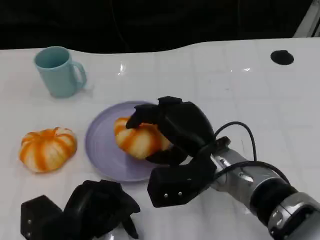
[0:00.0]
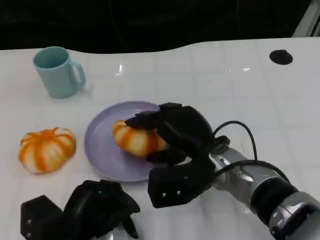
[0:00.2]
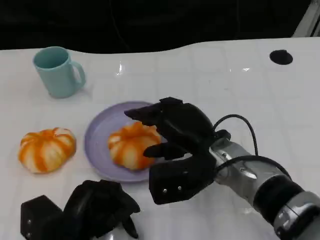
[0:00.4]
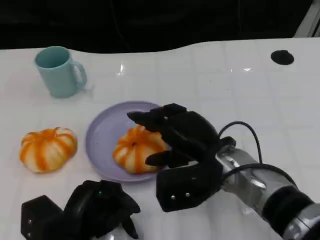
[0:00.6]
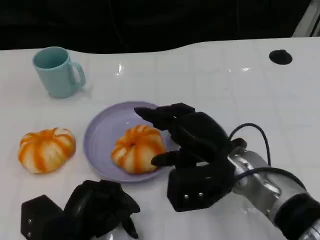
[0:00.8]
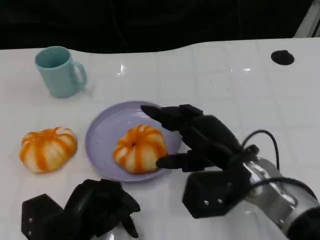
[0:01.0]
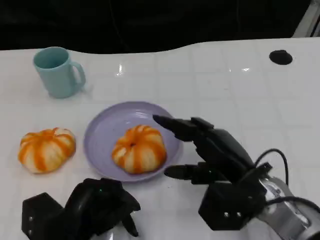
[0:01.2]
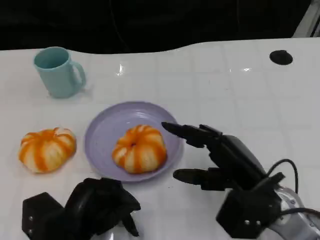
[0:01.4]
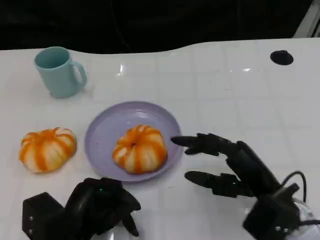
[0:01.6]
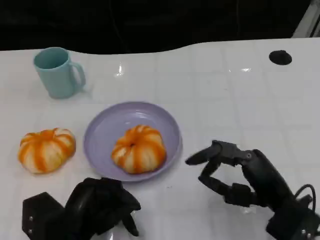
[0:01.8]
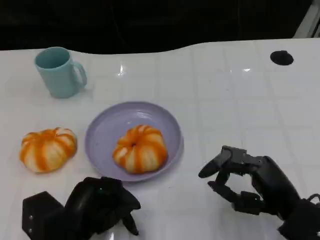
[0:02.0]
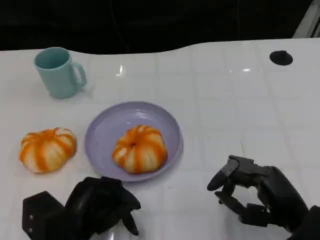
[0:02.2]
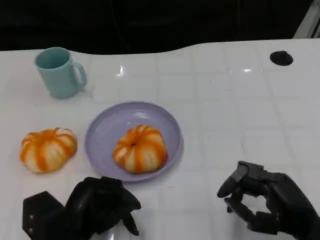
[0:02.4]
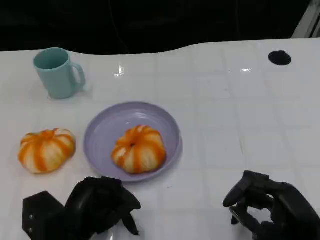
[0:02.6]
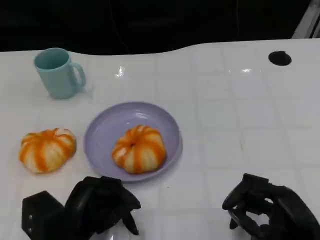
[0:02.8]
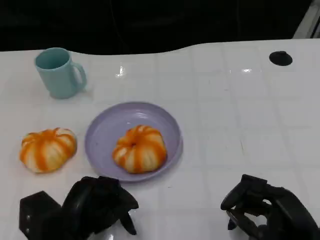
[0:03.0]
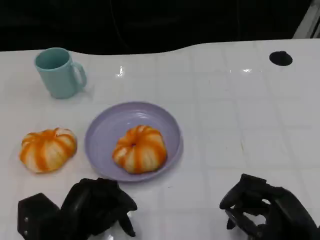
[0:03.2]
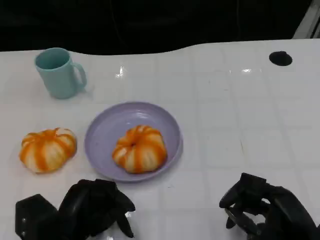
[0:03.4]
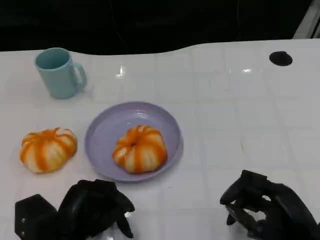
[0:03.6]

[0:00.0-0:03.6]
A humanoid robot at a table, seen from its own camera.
Task of the whole recording: Grasp the bread from the table and place it into the plate.
0:00.0 to 0:01.8: The right hand shifts about 15 cm to the right and backward.
0:01.8 to 0:03.6: The right hand moves backward, approximately 5 cm.

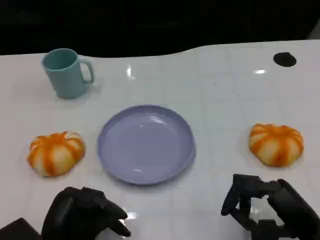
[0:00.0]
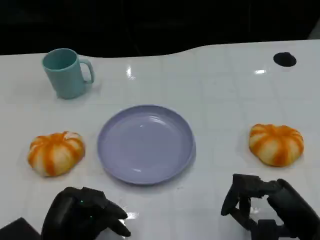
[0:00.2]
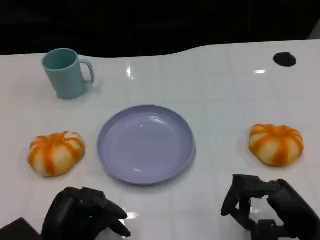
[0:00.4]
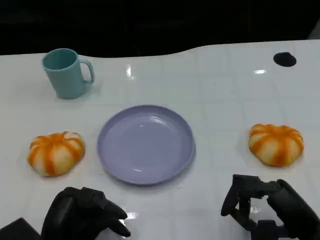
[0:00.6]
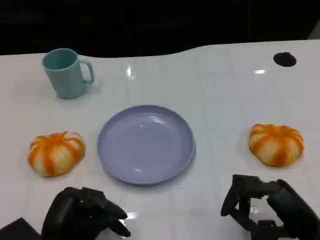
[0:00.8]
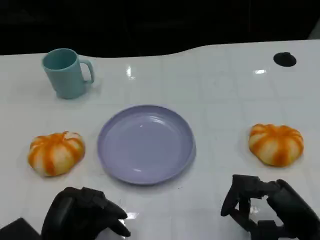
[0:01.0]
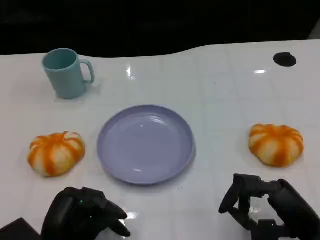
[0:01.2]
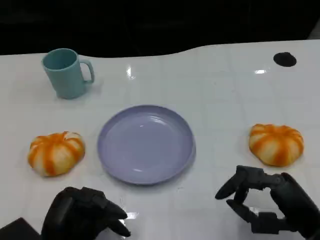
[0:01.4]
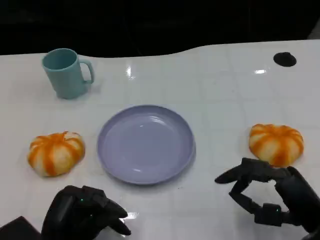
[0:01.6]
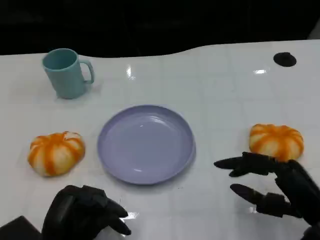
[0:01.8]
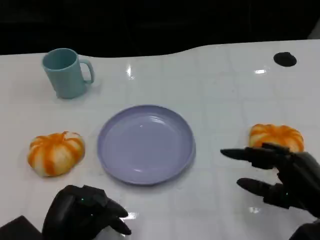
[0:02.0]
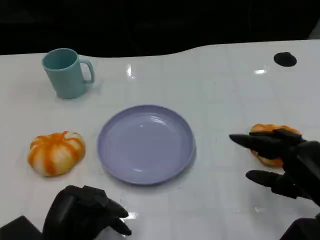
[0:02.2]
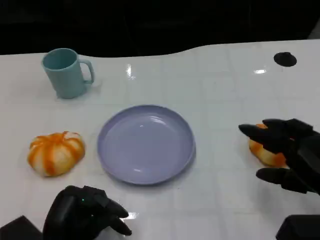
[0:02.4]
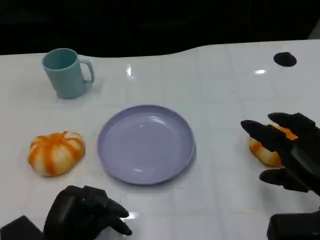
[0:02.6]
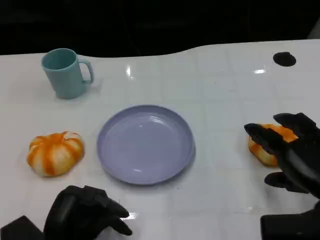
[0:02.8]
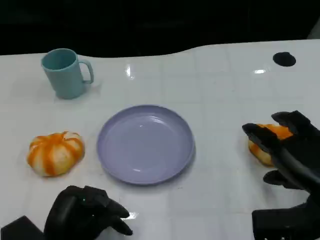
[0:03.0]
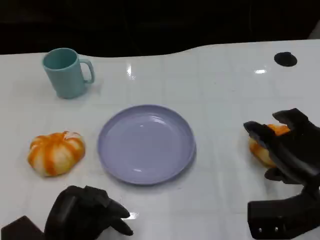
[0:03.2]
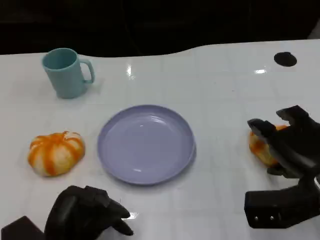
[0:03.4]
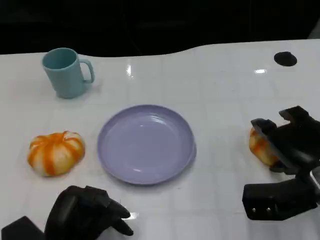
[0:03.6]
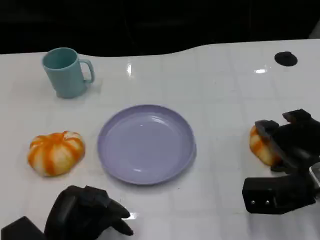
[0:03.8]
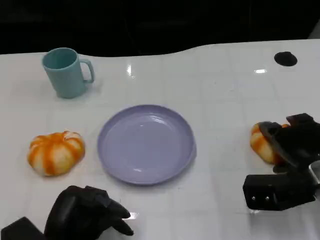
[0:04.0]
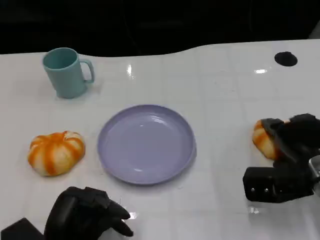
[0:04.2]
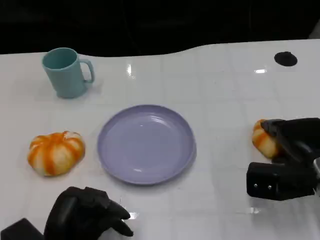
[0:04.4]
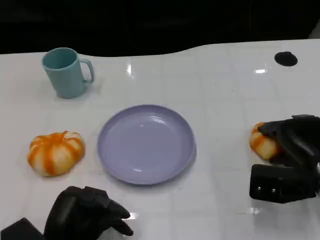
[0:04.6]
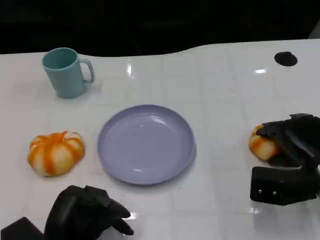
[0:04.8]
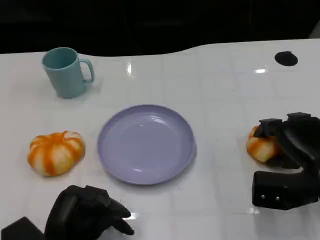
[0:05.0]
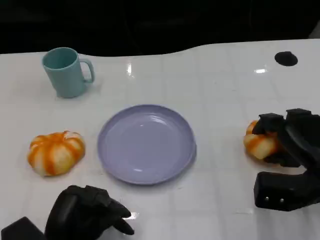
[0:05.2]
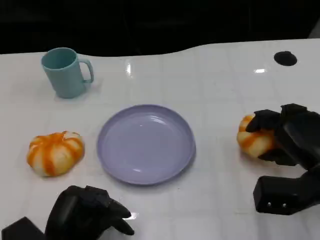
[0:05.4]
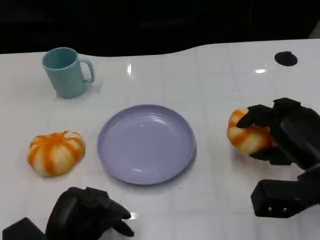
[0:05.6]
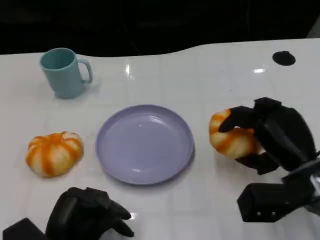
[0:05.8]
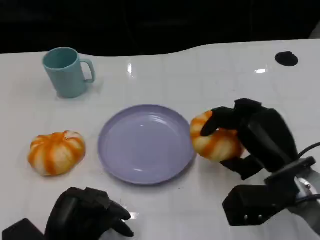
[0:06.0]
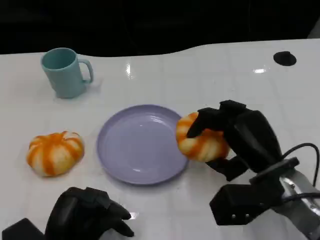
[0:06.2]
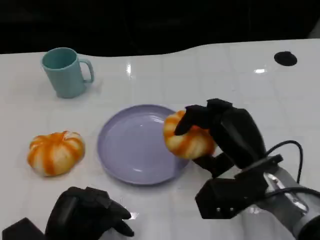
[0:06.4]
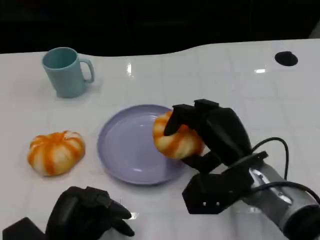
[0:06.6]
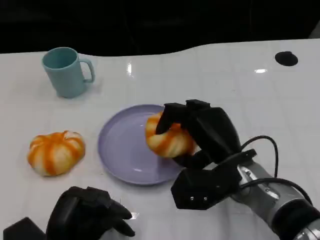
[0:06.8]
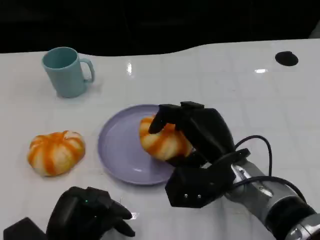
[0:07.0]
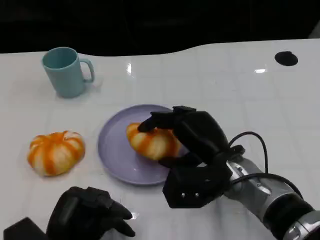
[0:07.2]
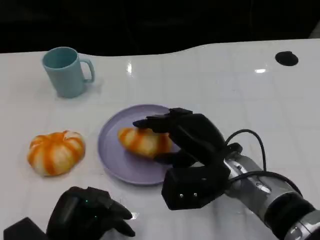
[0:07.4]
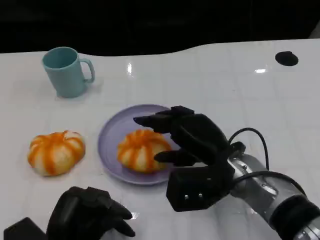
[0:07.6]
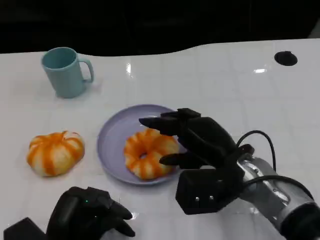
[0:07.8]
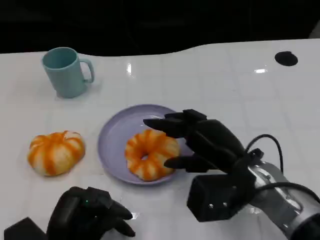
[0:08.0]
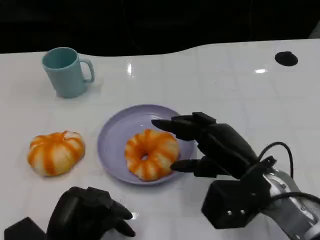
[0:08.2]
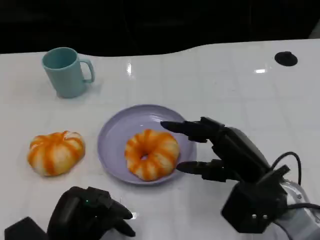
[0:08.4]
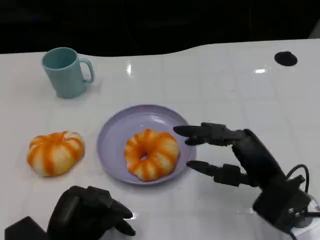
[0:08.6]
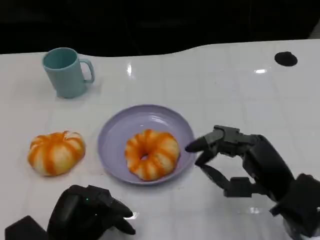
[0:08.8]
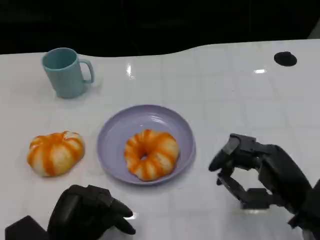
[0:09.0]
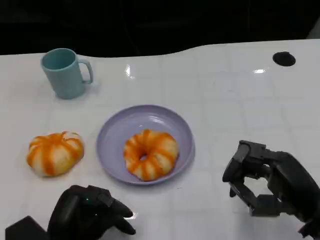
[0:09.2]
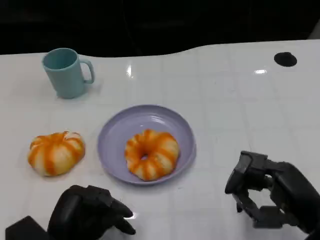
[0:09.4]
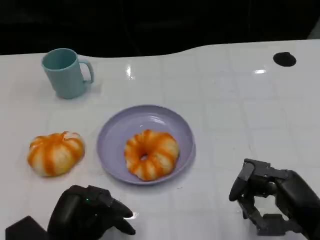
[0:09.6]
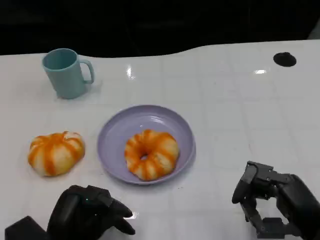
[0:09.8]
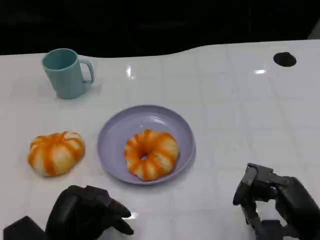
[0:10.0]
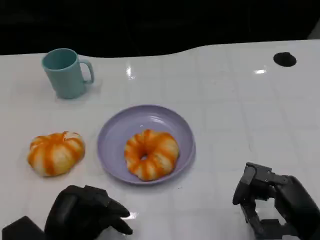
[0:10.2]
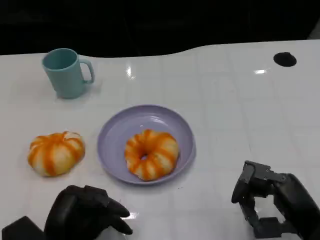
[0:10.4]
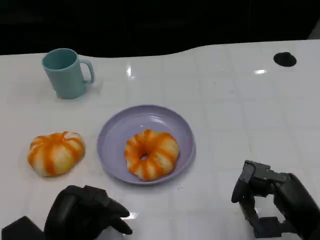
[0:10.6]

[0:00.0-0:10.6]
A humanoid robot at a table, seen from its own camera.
Task of the whole recording: Grasp the bread from the table and place it into the plate.
0:00.0 to 0:01.6: The hands stay close to where they were, moving slightly.
0:01.6 to 0:03.0: The right hand shifts by approximately 5 cm.
0:03.0 to 0:04.6: The right hand goes roughly 5 cm forward.
0:04.6 to 0:06.0: The right hand heads to the left, covering roughly 5 cm.
0:06.0 to 0:07.6: The right hand heads to the left, covering approximately 10 cm.
0:07.6 to 0:09.0: The right hand is displaced to the right and backward by approximately 15 cm.
0:09.0 to 0:10.6: The hands stay close to where they were, moving slightly.

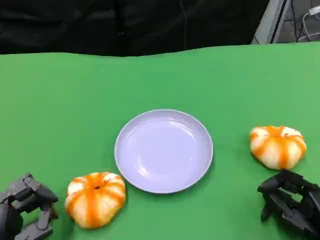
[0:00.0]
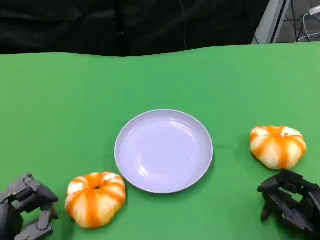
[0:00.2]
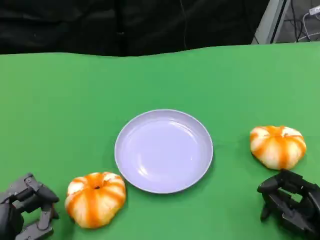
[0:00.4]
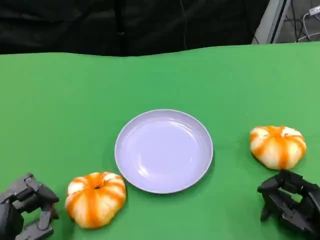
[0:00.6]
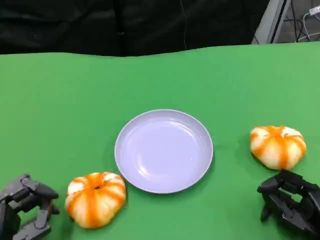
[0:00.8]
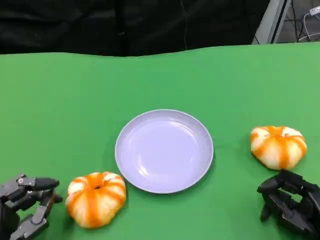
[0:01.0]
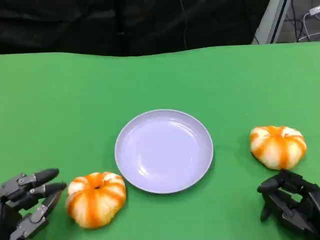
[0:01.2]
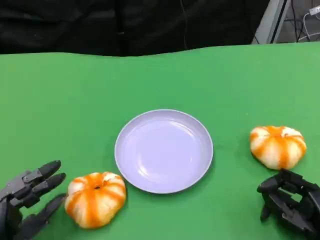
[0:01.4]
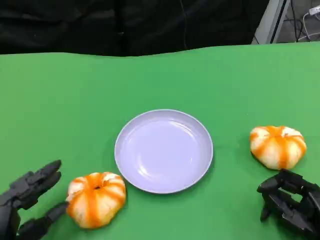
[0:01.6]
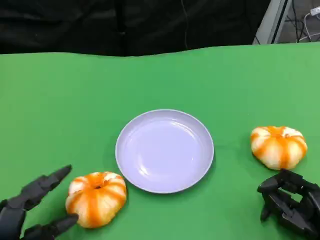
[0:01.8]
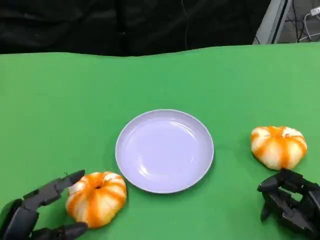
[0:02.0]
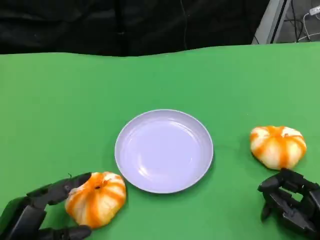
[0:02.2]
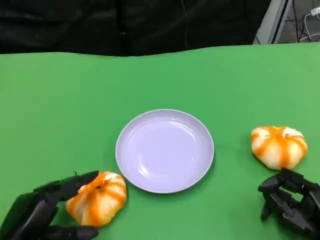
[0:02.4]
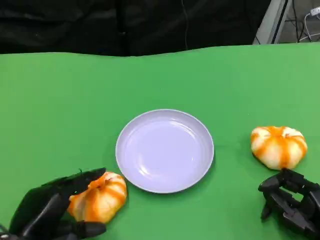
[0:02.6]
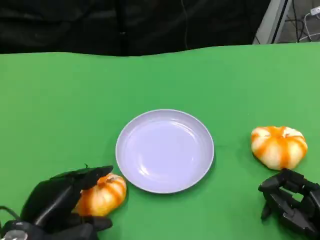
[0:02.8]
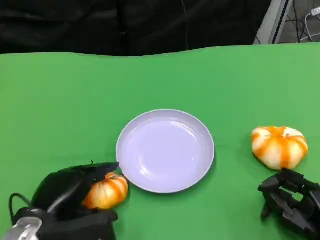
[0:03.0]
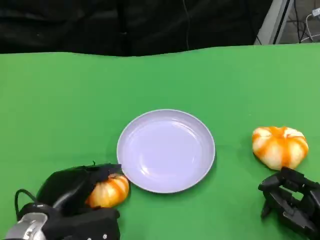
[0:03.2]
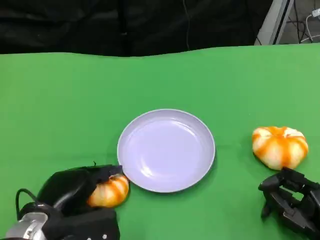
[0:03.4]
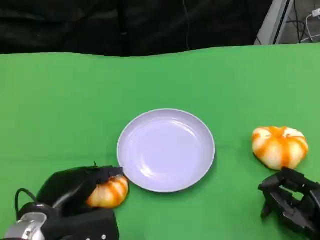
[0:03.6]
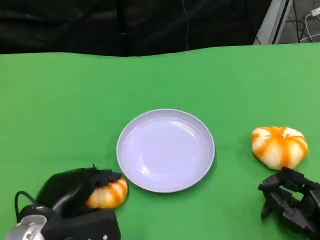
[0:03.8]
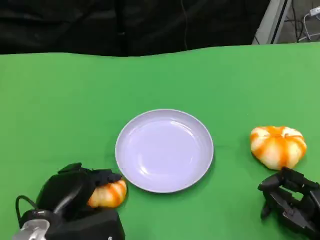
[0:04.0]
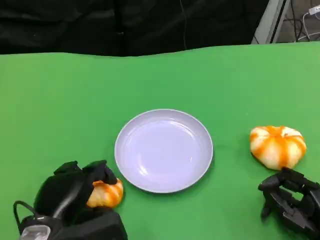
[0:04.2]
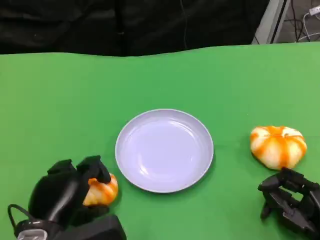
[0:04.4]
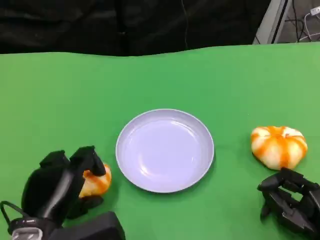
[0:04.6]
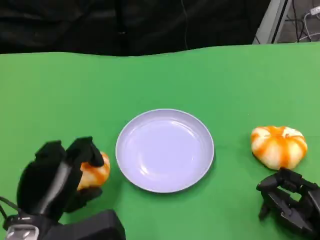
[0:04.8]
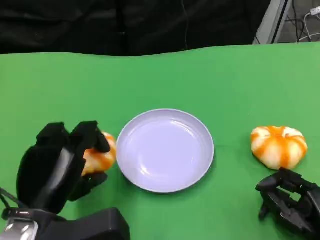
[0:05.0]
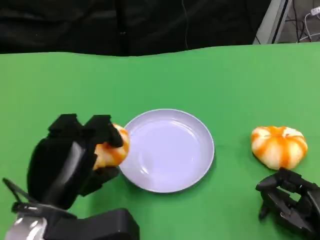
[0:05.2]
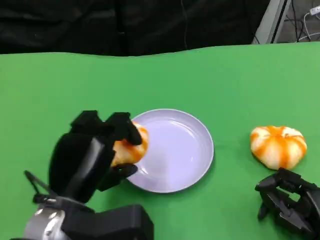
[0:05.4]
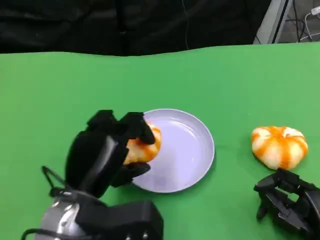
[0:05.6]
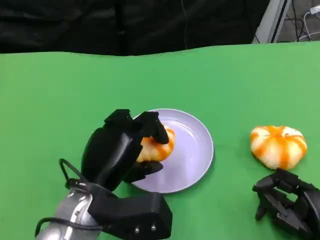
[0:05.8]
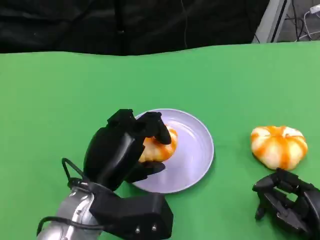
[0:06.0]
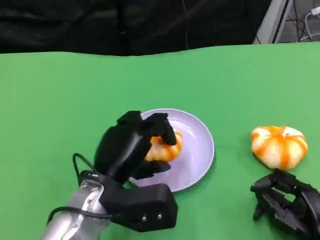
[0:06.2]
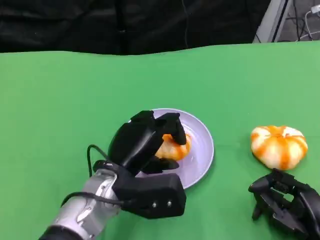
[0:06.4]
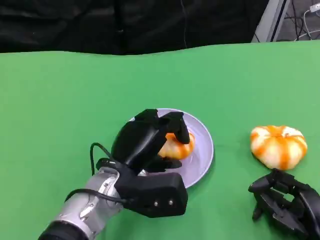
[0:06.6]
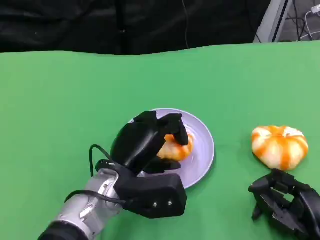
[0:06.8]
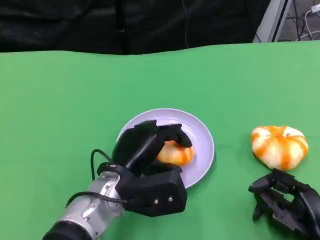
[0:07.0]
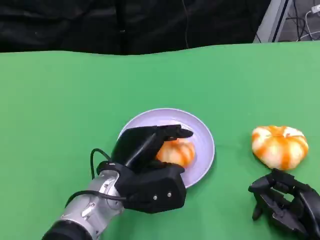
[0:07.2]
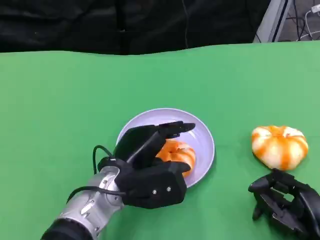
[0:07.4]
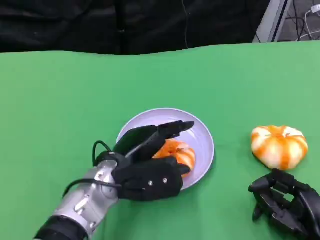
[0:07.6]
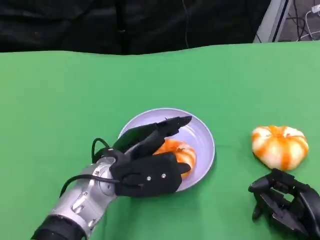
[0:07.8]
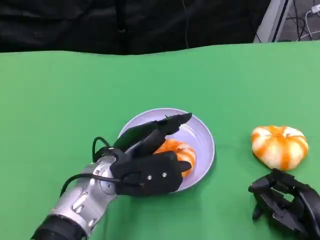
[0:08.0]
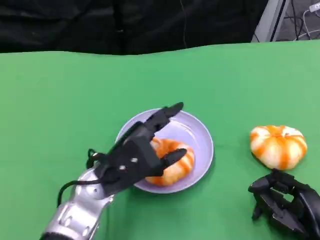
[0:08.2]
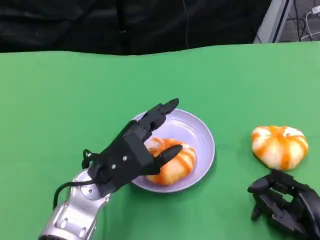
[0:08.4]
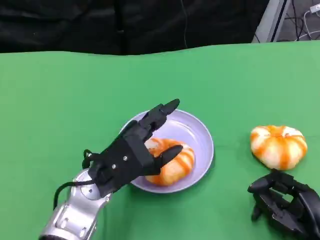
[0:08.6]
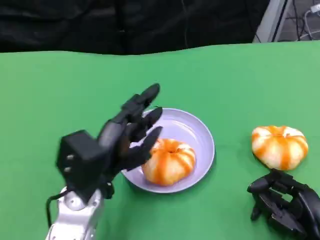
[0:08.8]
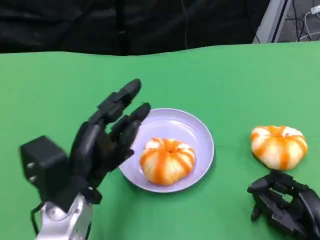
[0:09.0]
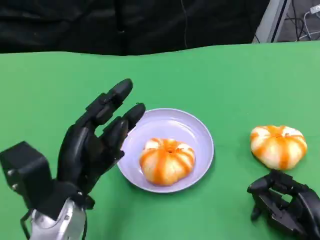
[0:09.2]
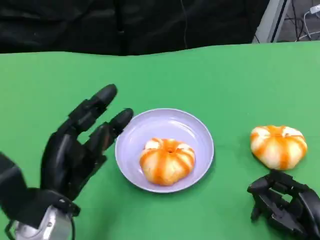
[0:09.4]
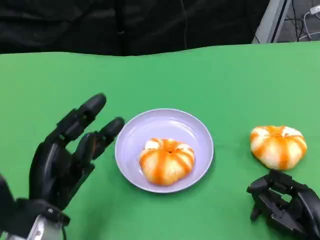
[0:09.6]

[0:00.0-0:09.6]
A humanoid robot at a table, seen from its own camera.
Task of the whole recording: Grasp the bread from the table and place it into the plate.
0:00.0 to 0:01.6: There are only small adjustments of the hands.
0:01.6 to 0:03.2: The left hand moves forward and to the right, about 10 cm.
0:03.2 to 0:04.8: The left hand shifts by approximately 5 cm.
0:04.8 to 0:06.4: The left hand shifts roughly 15 cm to the right and forward.
0:06.4 to 0:08.0: The hands make only small movements.
0:08.0 to 0:09.6: The left hand moves to the left and backward, approximately 10 cm.
